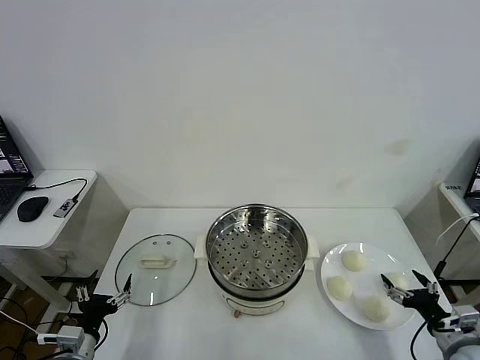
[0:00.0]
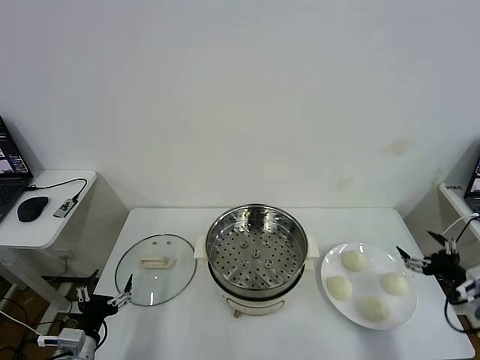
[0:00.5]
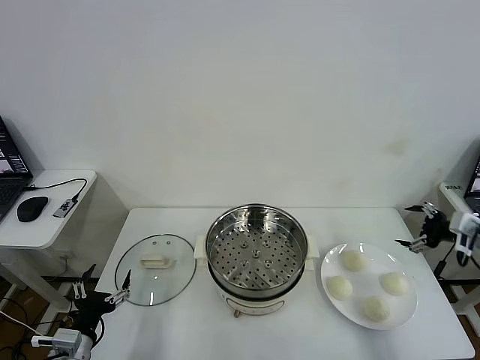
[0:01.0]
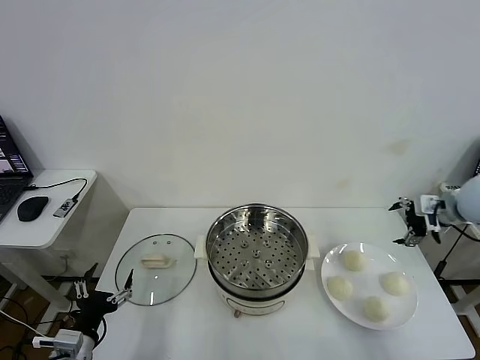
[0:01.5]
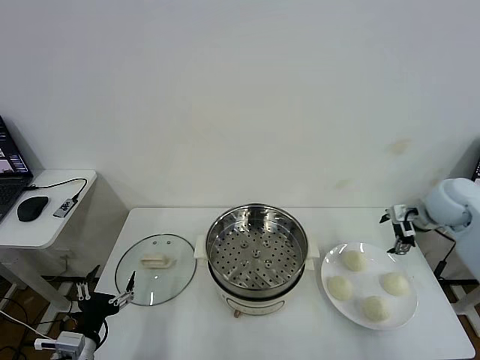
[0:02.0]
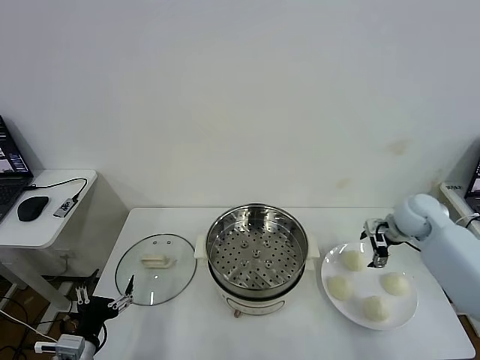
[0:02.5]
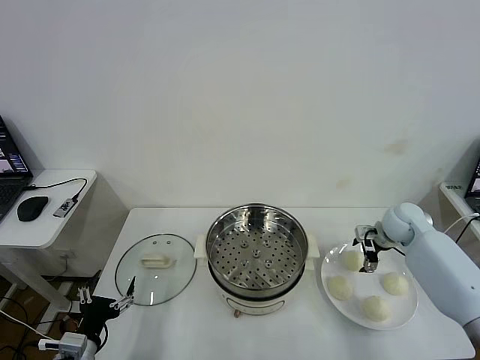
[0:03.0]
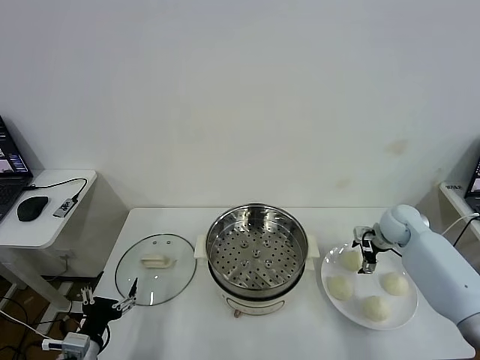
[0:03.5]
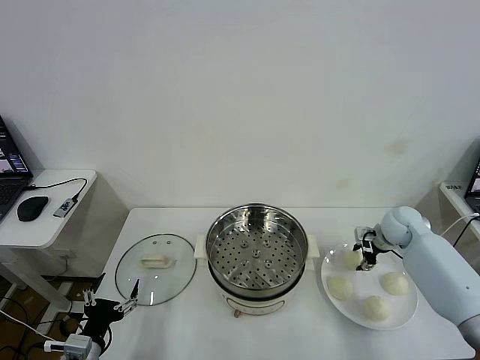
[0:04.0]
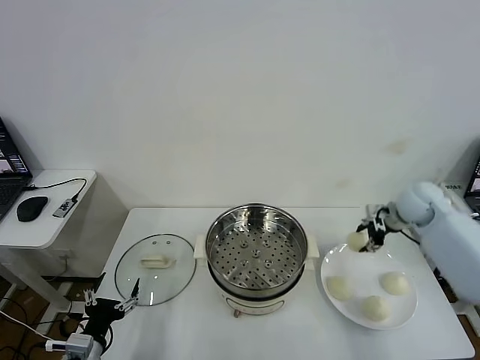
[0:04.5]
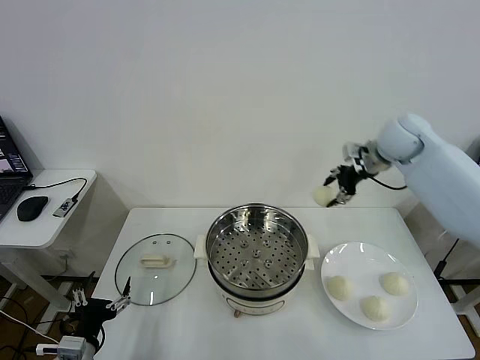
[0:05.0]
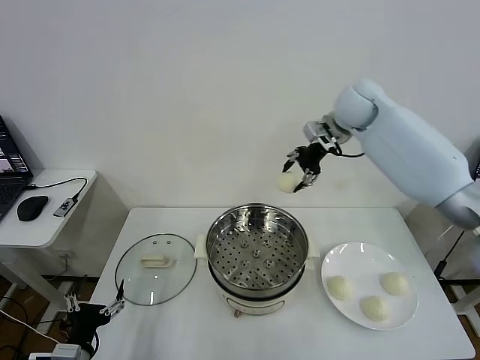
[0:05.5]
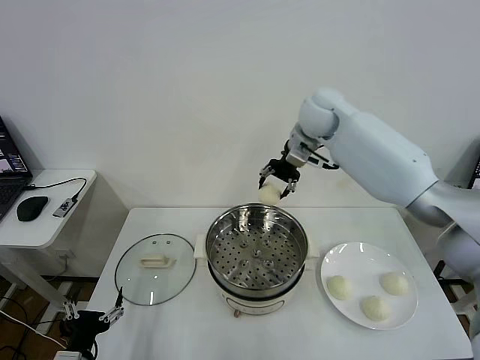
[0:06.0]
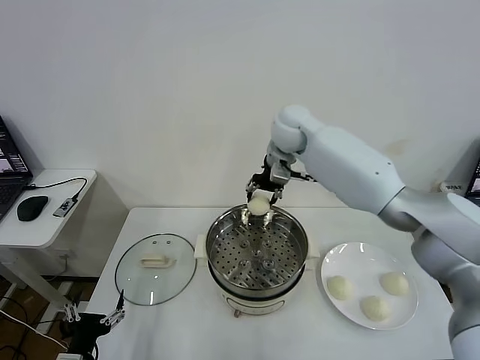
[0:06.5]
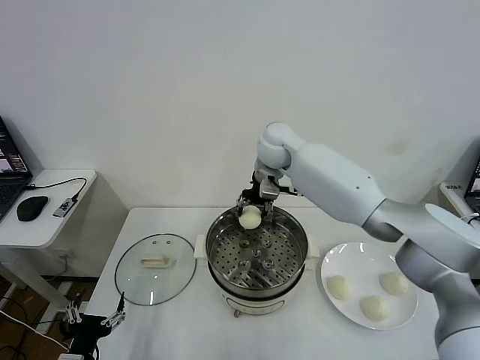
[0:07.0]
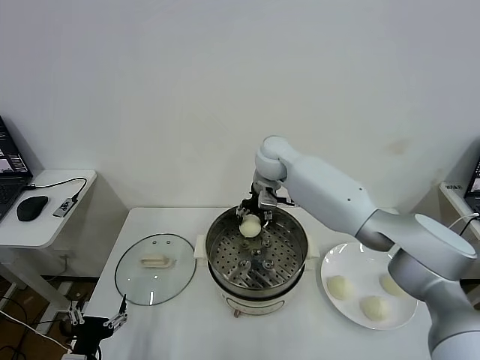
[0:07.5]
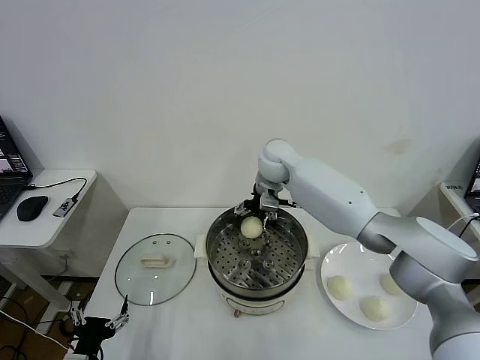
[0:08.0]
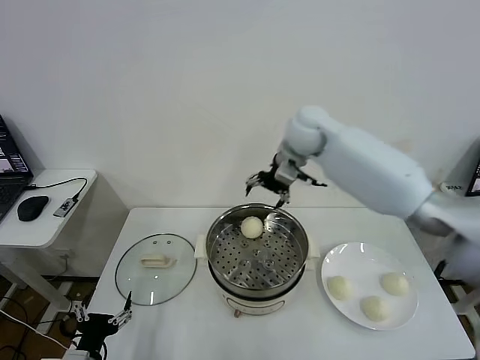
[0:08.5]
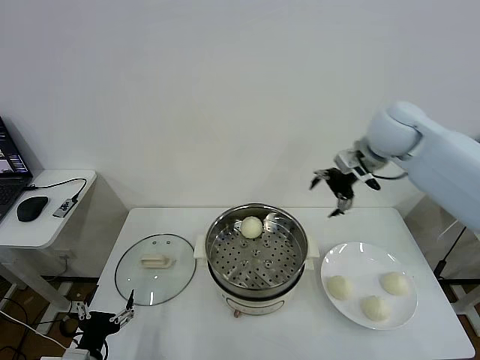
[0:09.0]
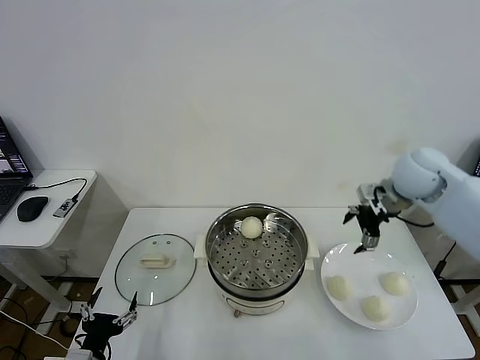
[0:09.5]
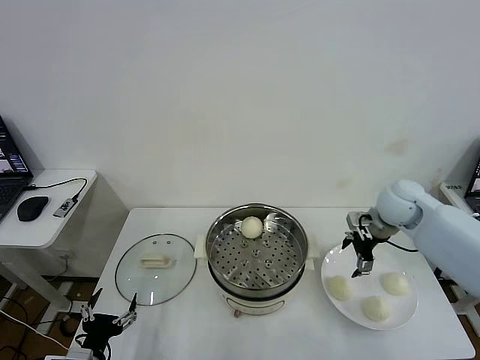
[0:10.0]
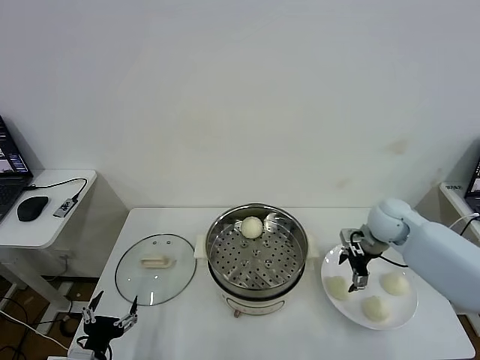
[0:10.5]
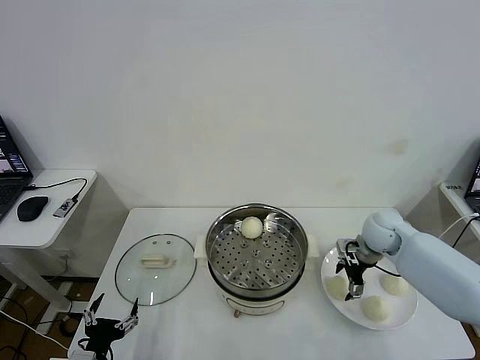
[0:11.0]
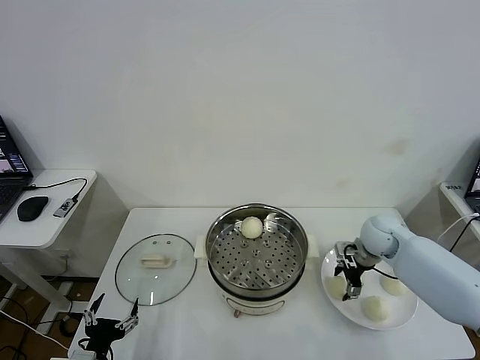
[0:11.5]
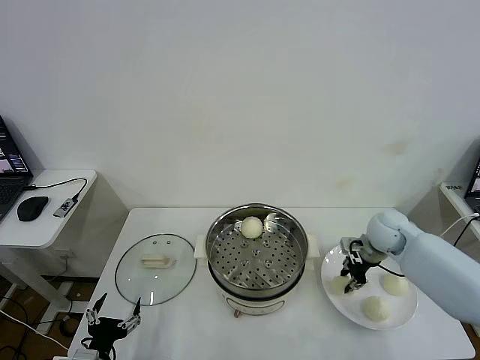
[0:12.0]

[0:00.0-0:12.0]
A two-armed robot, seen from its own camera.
Task of the whole recording: take steamed baozi put them in steamer then cover it.
Step, 0.0 to 4.0 s: Grasp the baozi in the plate with right gripper.
Step, 4.5 to 8.0 s: Place the baozi on the steamer with right gripper.
Step, 8.5 to 12.0 s: Grasp the baozi in the plate with right gripper.
2.0 to 4.0 s: The right gripper travels downward by roughly 10 cm, and closes up.
4.0 to 6.0 s: The right gripper shifts about 35 cm to the left and upward.
6.0 to 8.0 s: The right gripper heads downward and to the left, covering about 10 cm, and opens up.
8.0 to 10.0 s: The right gripper goes roughly 30 cm to the right and backward.
10.0 to 12.0 s: The right gripper goes roughly 5 cm downward, and closes its fingers.

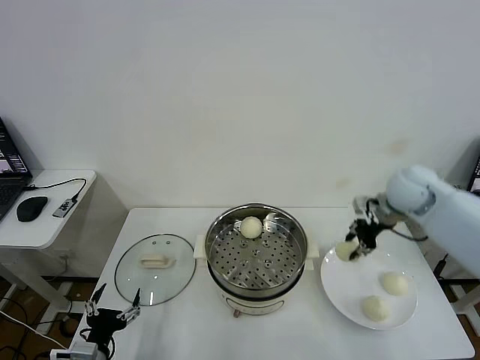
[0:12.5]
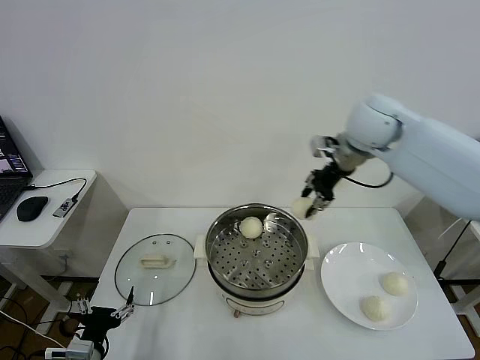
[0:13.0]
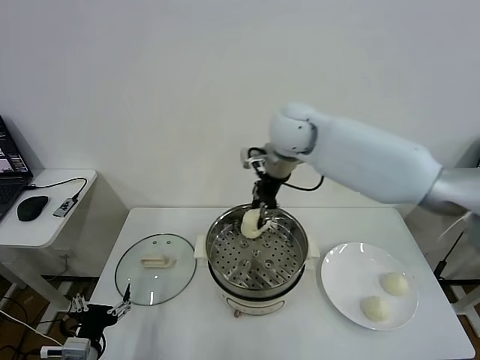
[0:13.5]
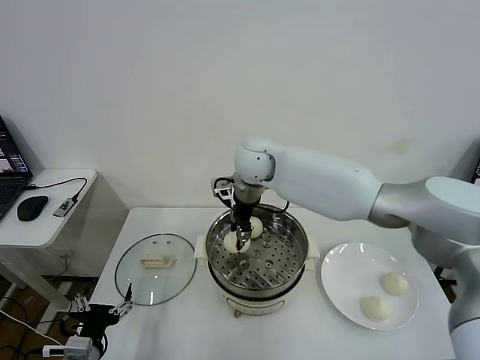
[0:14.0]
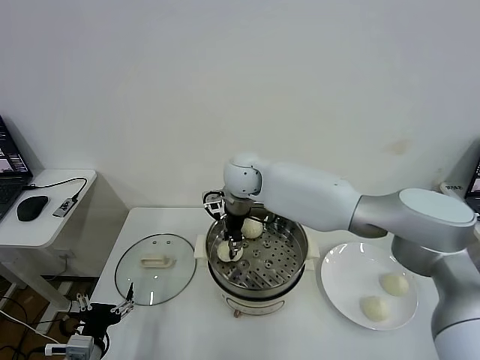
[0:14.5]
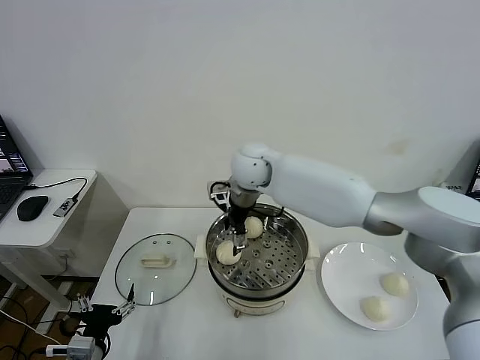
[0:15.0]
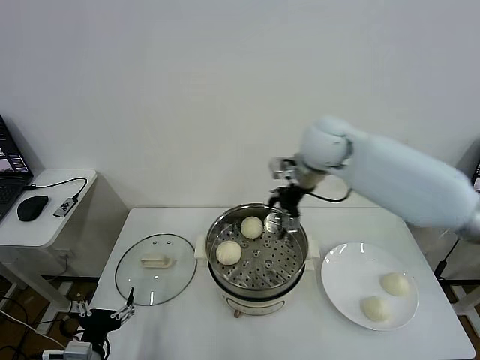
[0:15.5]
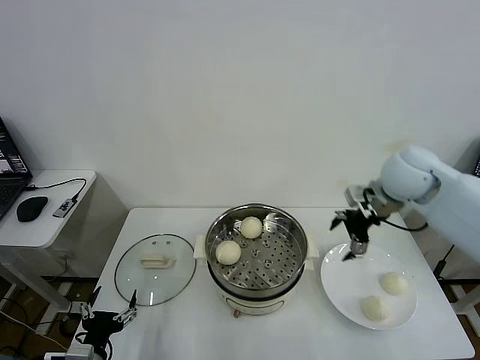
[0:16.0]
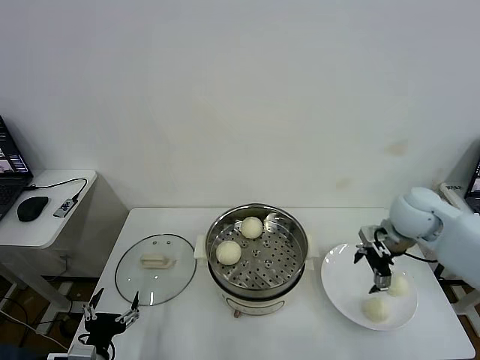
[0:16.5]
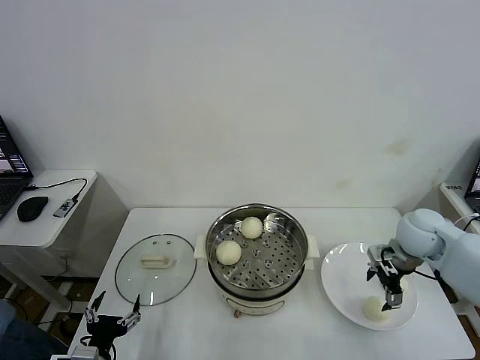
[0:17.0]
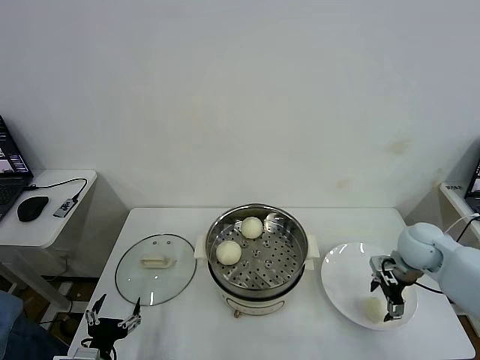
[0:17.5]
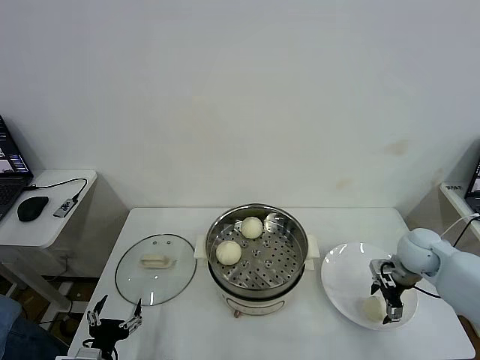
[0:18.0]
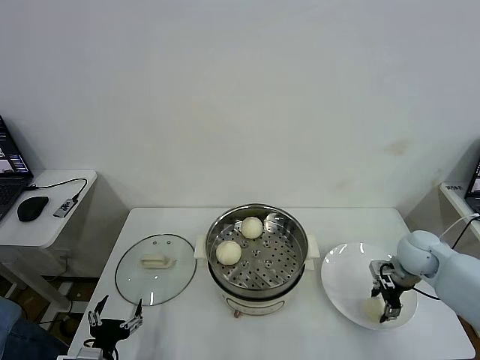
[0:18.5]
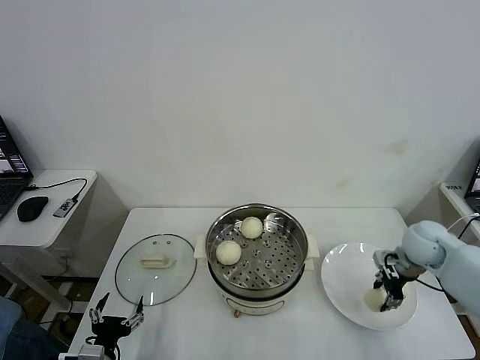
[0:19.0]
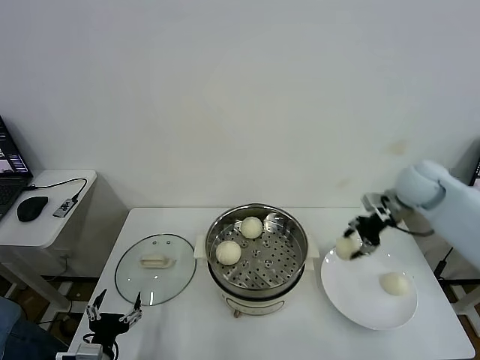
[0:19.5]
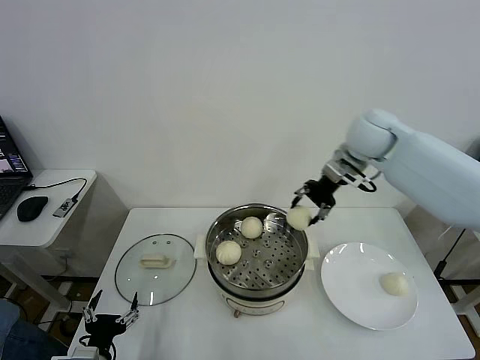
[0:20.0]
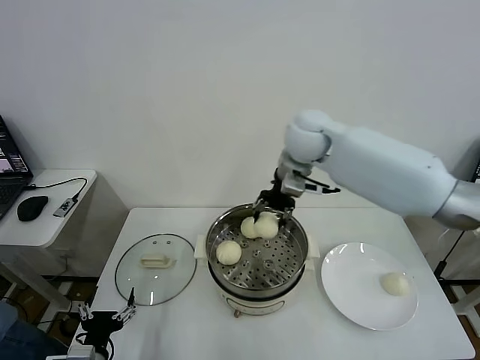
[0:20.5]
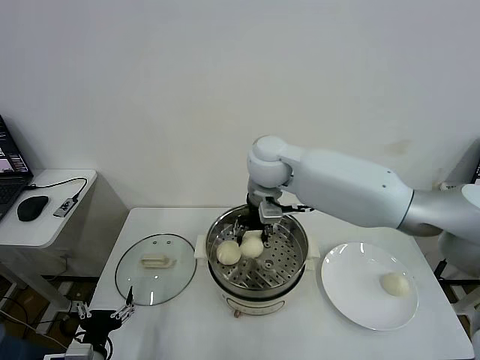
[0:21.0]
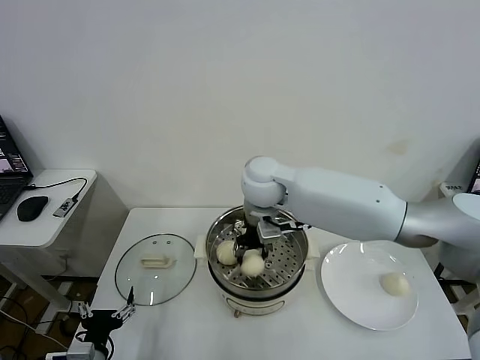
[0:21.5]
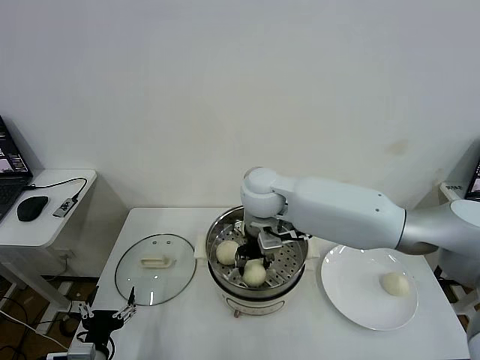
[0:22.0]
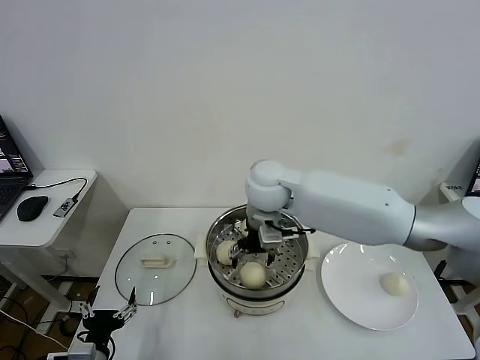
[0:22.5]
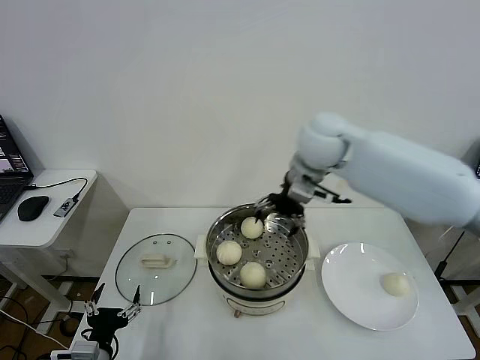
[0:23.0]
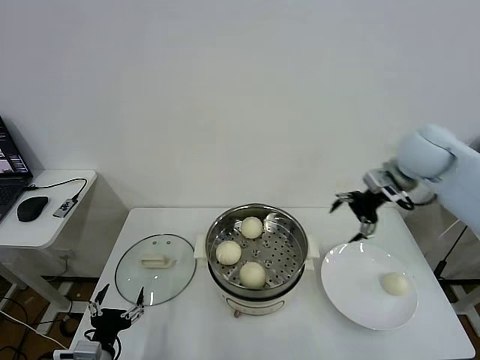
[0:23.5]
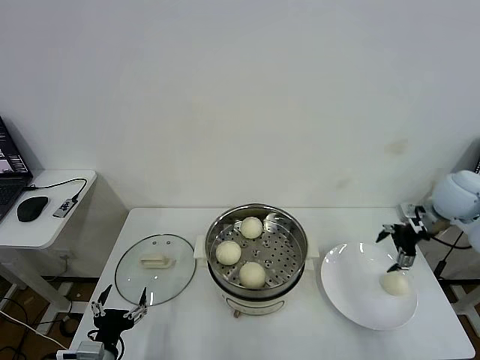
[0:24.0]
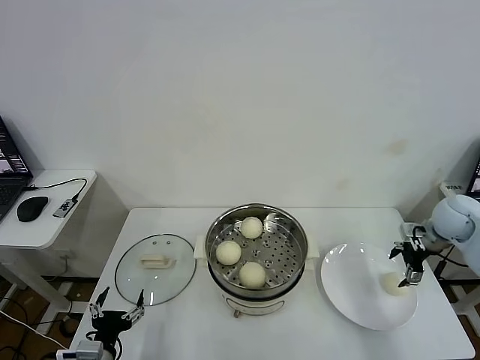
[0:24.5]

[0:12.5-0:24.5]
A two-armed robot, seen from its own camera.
Task of the whole recording: take steamed baozi put them in steamer then cover it.
Step, 12.5 to 15.0 s: Place the baozi on the steamer with right gripper.
Step, 15.5 to 18.5 s: Grasp the baozi in the plate with right gripper.
Step, 19.0 to 22.5 s: Place the baozi on the steamer with right gripper.
12.5 to 14.5 s: The right gripper goes approximately 35 cm to the left.
14.5 to 16.5 s: The right gripper goes roughly 35 cm to the right, and opens its fingers.
16.5 to 18.5 s: The right gripper heads downward and to the right, covering approximately 10 cm, and closes its fingers.
18.5 to 20.5 s: The right gripper goes approximately 40 cm to the left and upward.
20.5 to 22.5 s: The right gripper goes roughly 10 cm downward, backward and to the left, and opens.
22.5 to 24.5 s: The right gripper heads to the right, covering some 40 cm.

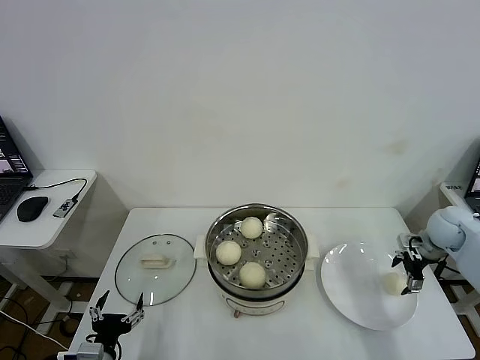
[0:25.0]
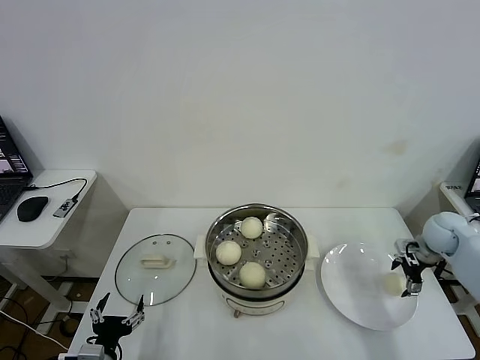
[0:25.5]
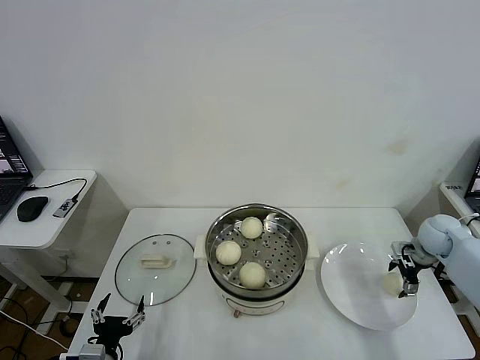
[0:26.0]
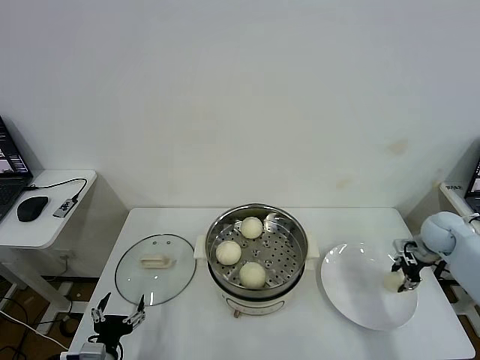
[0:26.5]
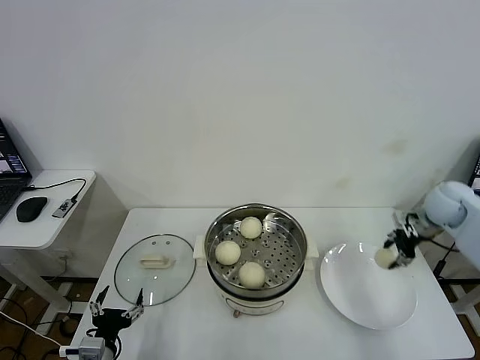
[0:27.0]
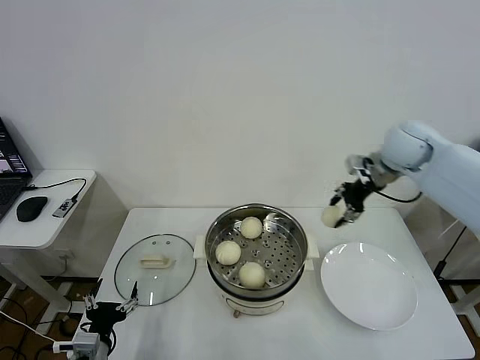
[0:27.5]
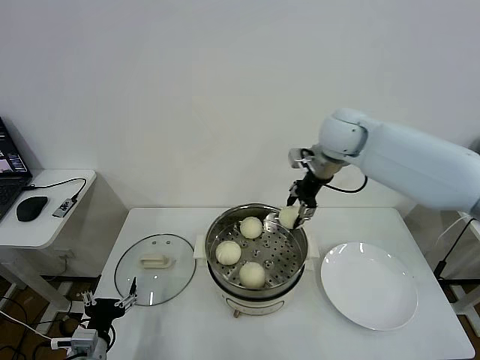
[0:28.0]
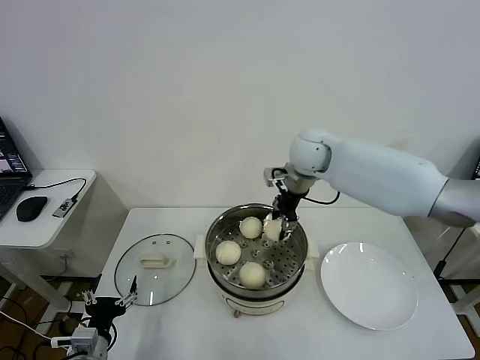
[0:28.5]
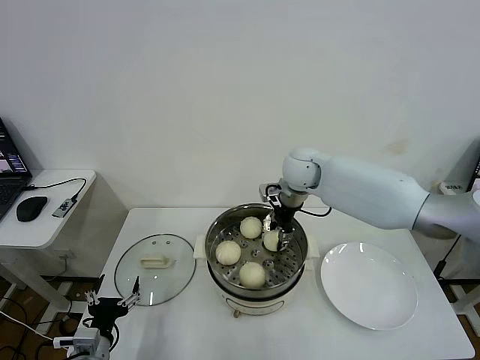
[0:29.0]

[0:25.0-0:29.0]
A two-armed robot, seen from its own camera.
Task of the whole recording: take steamed baozi put them in steamer then cover it.
25.0 to 27.0 s: The right gripper moves upward, roughly 5 cm, and closes its fingers.
27.0 to 29.0 s: The right gripper travels to the left by roughly 30 cm.
